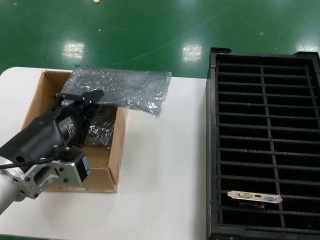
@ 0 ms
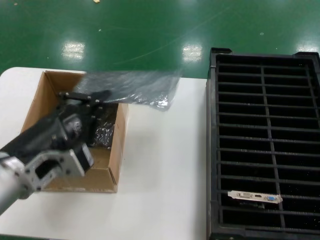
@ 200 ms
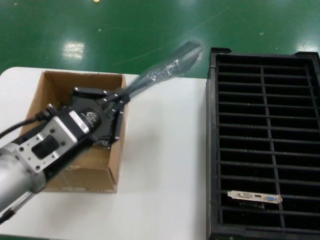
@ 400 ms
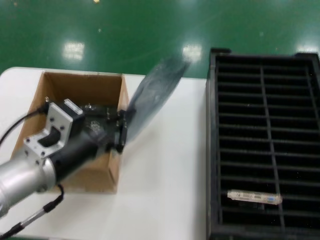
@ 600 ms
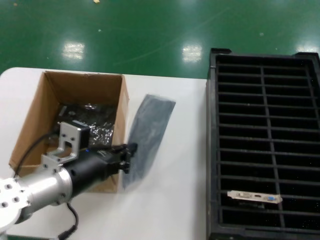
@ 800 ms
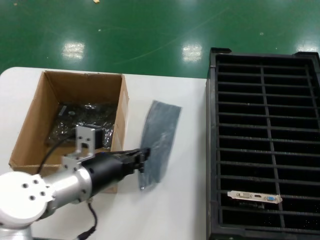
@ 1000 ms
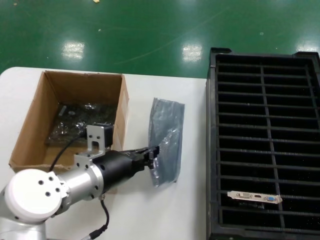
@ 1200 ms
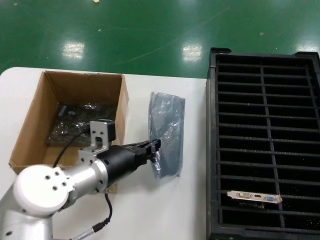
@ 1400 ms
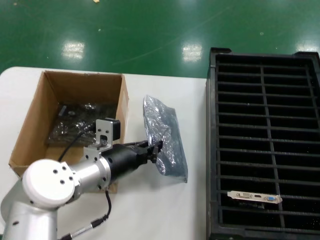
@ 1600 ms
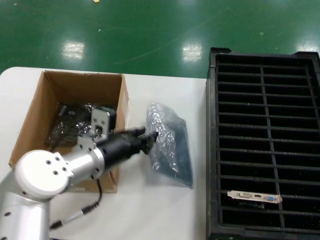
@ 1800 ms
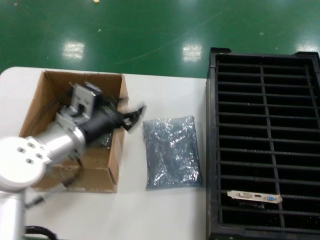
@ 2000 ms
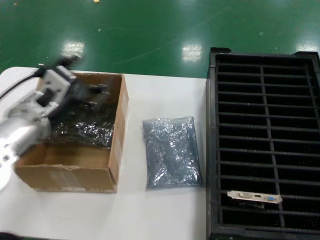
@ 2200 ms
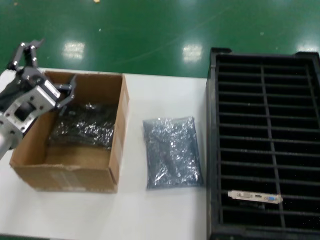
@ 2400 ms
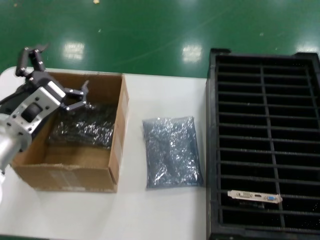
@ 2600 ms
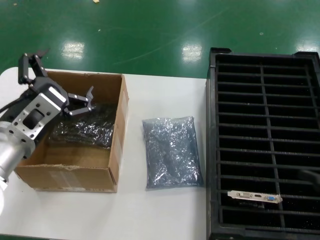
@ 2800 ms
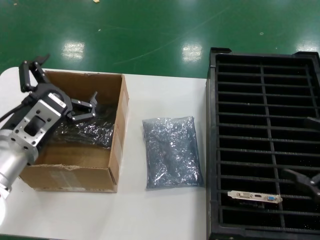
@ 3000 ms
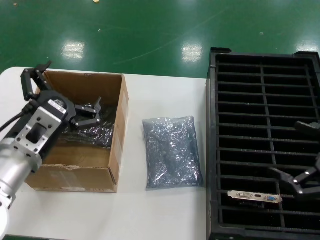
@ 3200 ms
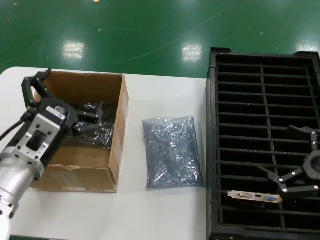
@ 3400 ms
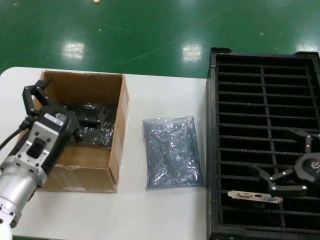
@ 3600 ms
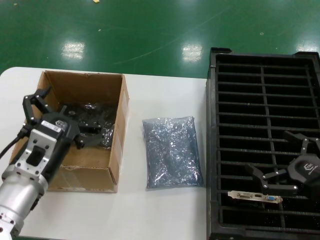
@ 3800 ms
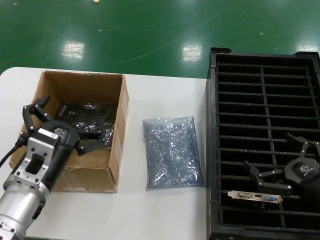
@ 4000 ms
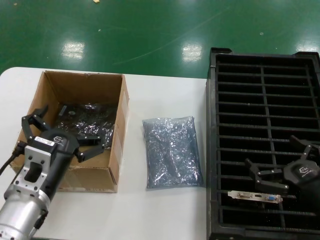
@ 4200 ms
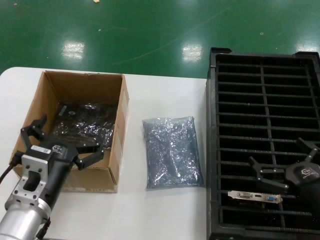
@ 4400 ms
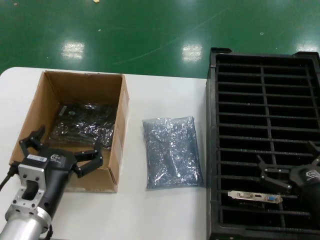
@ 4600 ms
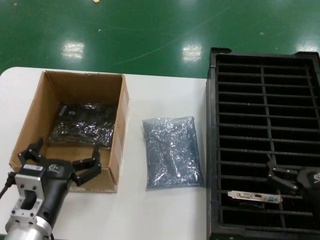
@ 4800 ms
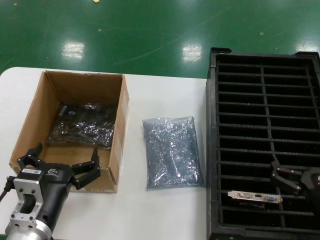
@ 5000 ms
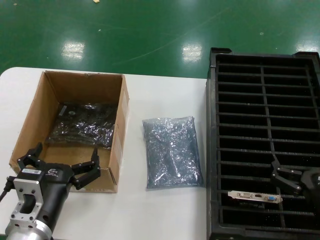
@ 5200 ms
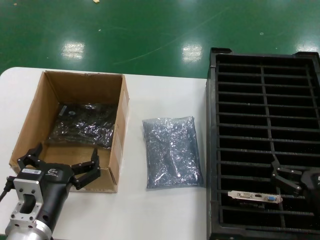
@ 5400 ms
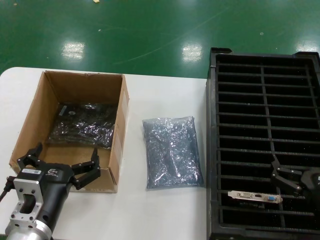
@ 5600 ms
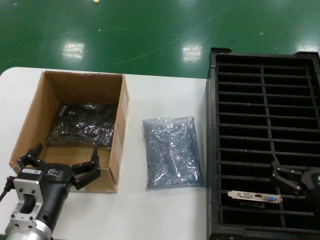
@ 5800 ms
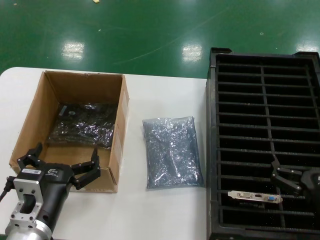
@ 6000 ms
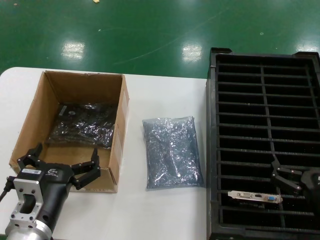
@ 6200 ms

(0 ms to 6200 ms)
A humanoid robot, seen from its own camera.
Task of the whole recording: take out graphics card from box remove packaging put into black container.
Step, 0 ms - 2000 ms: Place the down the bag.
0 ms - 1600 ms: The left hand heads forward and downward, covering about 15 cm.
1600 ms - 3200 ms: The left hand moves to the left and backward, approximately 10 cm. The right hand is displaced to the left and downward by some 10 cm.
3200 ms - 4600 ms: The right hand heads to the left and downward, covering approximately 15 cm; the left hand travels downward and backward by about 10 cm.
4600 ms - 6200 ms: The hands stay close to where they were, moving slightly.
